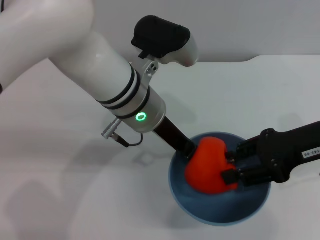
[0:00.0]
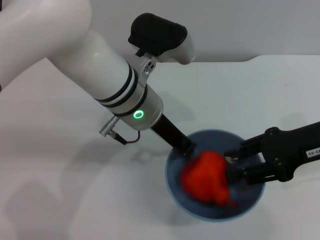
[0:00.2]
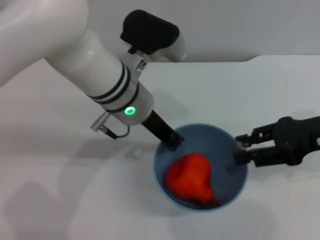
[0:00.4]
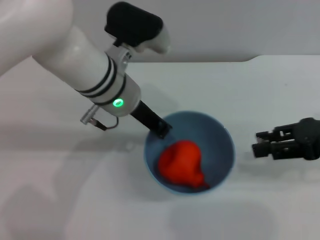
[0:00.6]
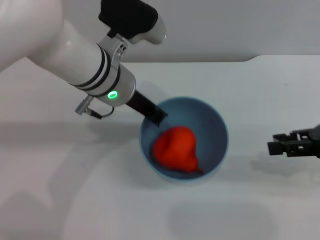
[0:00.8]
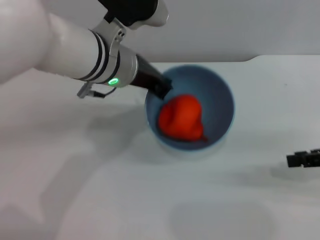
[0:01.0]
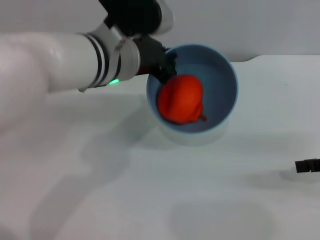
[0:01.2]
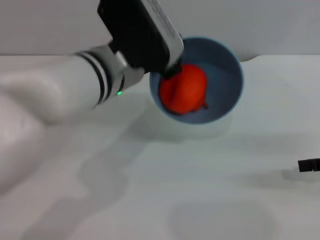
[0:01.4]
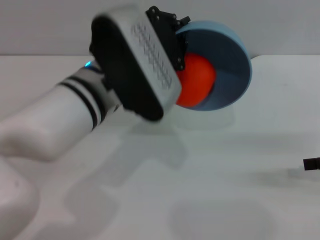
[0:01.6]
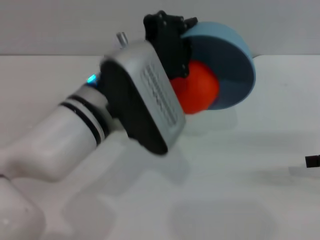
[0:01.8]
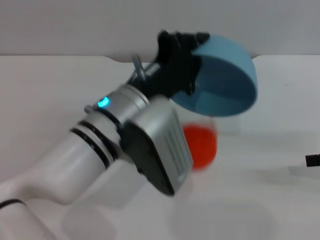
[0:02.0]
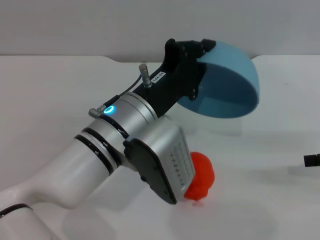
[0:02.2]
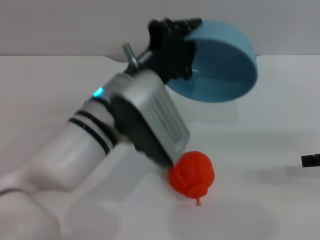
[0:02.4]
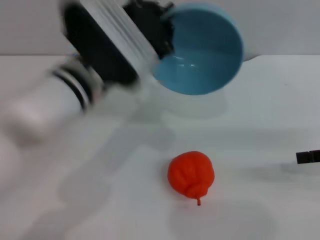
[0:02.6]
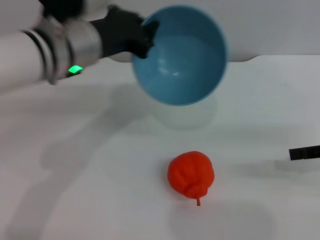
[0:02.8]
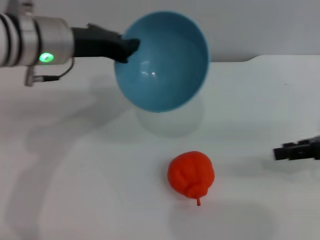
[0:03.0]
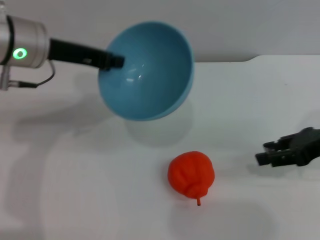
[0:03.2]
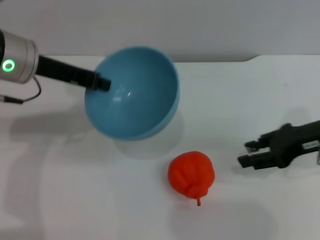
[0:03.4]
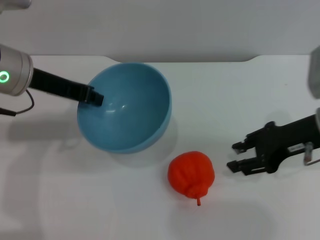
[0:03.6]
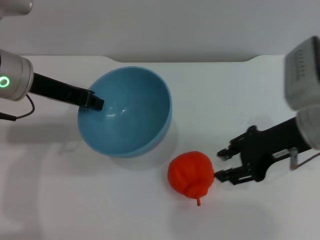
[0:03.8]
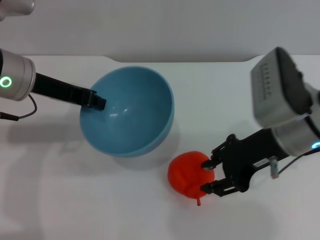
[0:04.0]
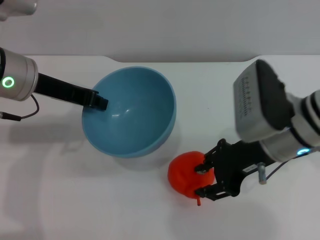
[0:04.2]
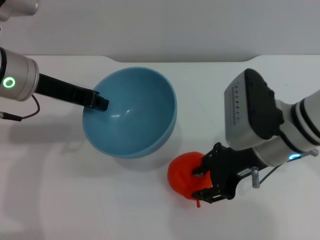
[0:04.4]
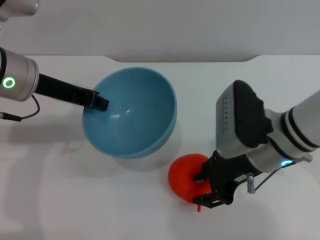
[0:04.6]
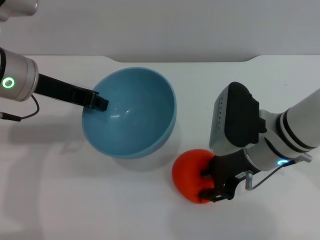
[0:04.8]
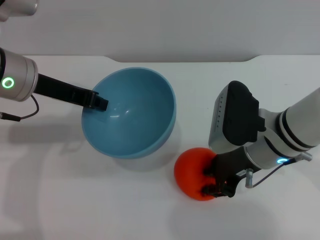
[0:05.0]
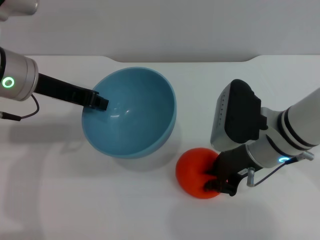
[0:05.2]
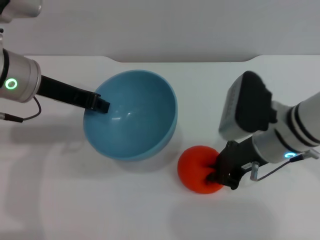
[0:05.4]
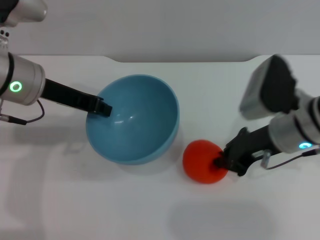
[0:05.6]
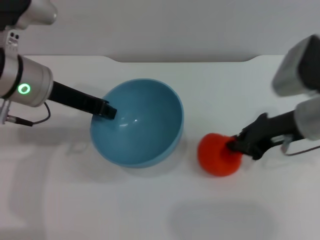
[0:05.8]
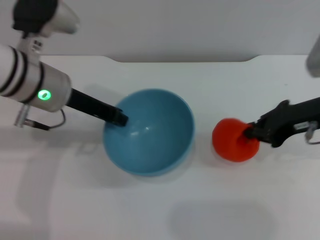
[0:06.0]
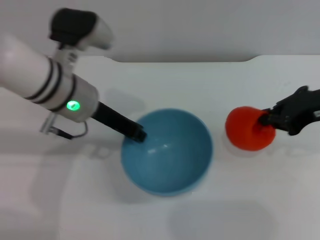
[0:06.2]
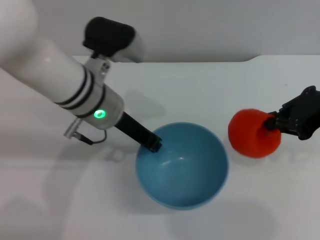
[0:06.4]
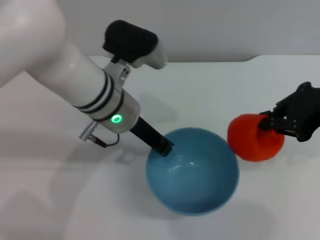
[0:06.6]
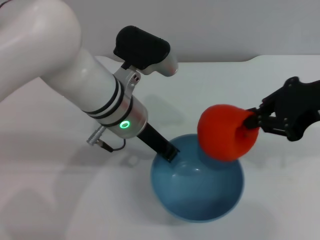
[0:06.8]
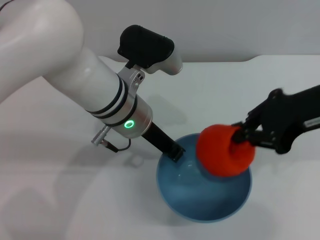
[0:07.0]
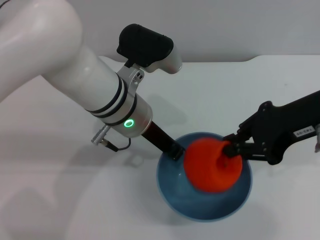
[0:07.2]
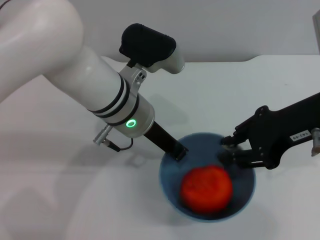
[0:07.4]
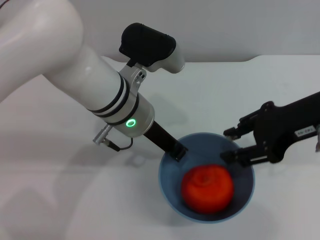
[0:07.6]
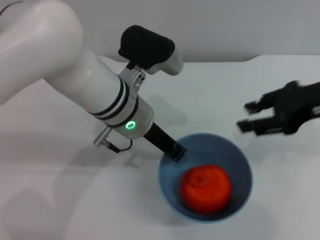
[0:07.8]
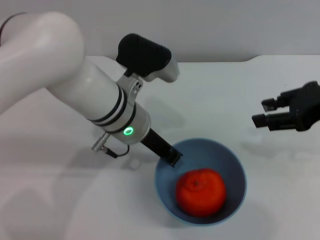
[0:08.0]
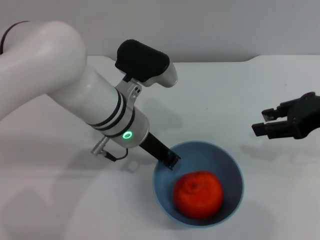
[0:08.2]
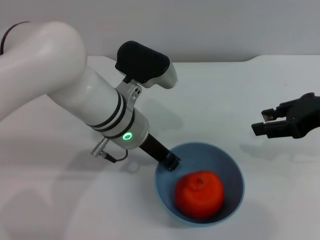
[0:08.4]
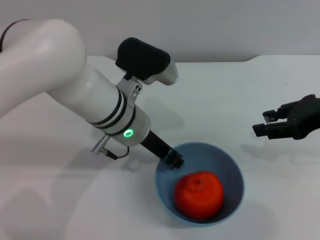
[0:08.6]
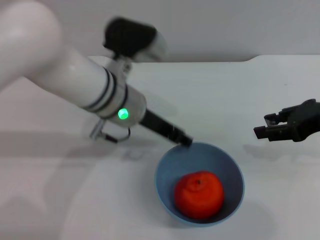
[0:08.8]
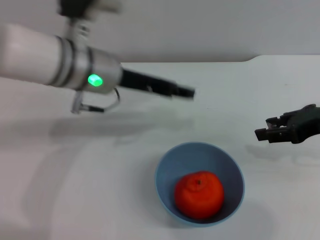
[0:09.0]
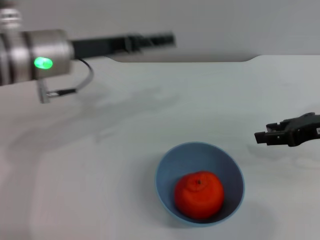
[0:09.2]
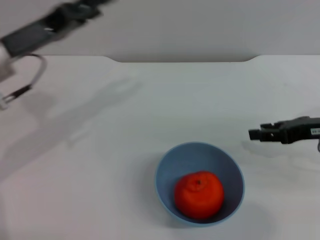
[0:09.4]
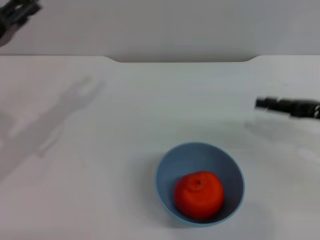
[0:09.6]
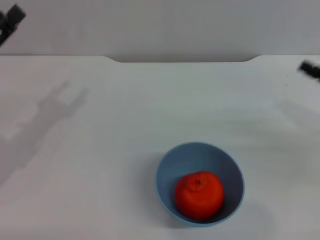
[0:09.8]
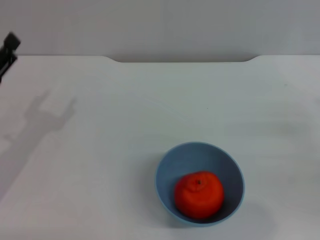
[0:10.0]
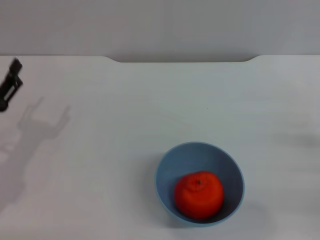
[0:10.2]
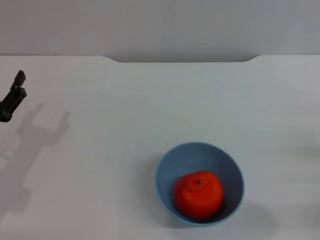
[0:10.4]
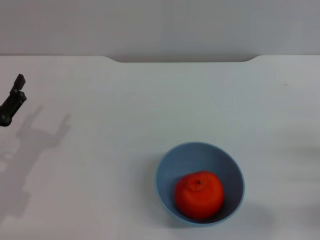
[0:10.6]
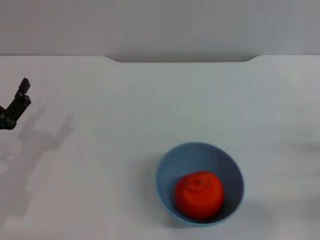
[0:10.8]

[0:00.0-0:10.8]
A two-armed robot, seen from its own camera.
Task of the whole recording: put the orange into the blue bowl and pour it out repeatedly.
Step, 0:00.6 to 0:02.6: Pour the orange out of the bowl.
Step, 0:02.8 to 0:06.0: Pick up the orange with the right gripper.
Step, 0:06.2 to 0:07.6: Place the orange into the bowl.
Step, 0:07.8 to 0:08.8: Place the bowl on the table.
0:00.0 to 0:01.6: The left gripper moves approximately 5 cm. The right gripper is displaced to the right by some 10 cm.
0:01.6 to 0:03.0: The right gripper ends up approximately 5 cm from where it was. The left gripper goes approximately 10 cm to the left and forward.
0:03.0 to 0:04.6: The right gripper goes about 20 cm to the left.
0:04.6 to 0:06.2: The right gripper travels to the right and upward by roughly 15 cm, and closes its fingers. The left gripper is displaced to the right by roughly 5 cm.
0:06.2 to 0:07.8: The right gripper opens up. Meanwhile the left gripper is displaced to the right by approximately 5 cm.
0:07.8 to 0:09.2: The left gripper shifts approximately 10 cm to the left, and opens its fingers; the right gripper is displaced downward by roughly 10 cm.
0:09.2 to 0:10.8: The right gripper shifts some 15 cm downward, backward and to the right. Meanwhile the left gripper shifts roughly 20 cm downward, backward and to the left.
